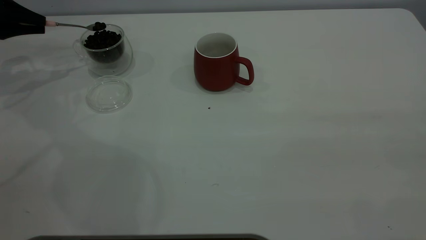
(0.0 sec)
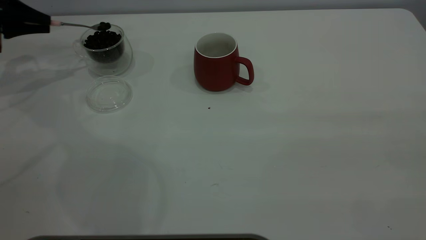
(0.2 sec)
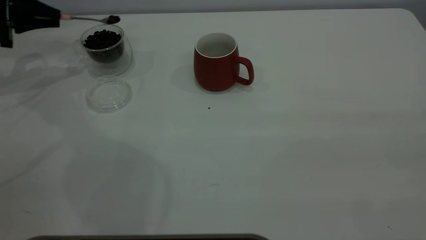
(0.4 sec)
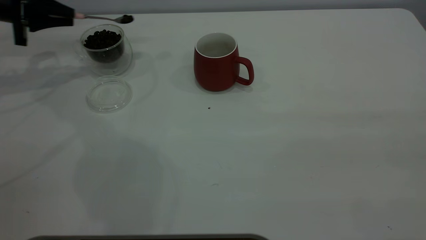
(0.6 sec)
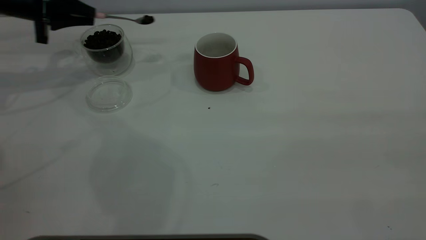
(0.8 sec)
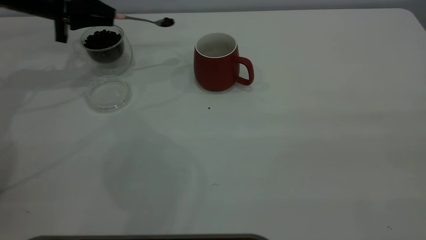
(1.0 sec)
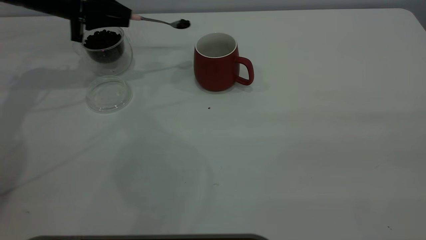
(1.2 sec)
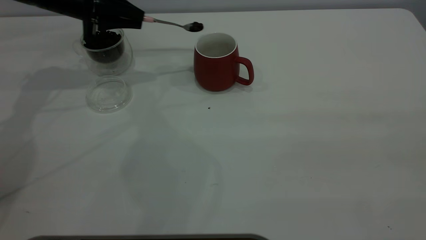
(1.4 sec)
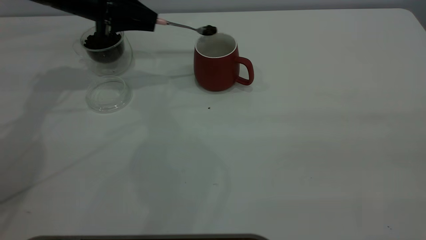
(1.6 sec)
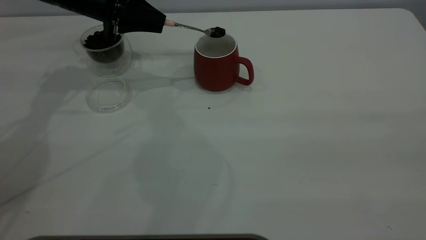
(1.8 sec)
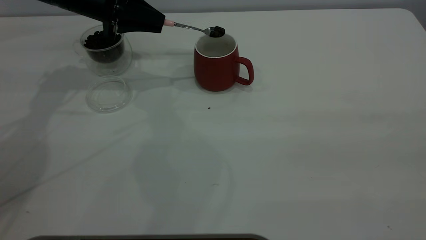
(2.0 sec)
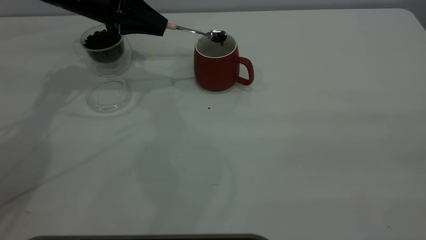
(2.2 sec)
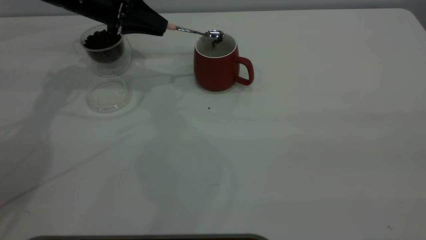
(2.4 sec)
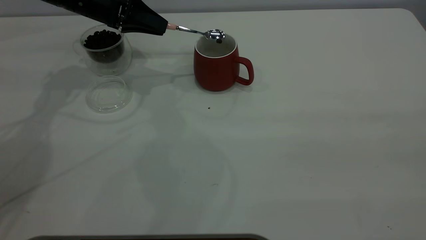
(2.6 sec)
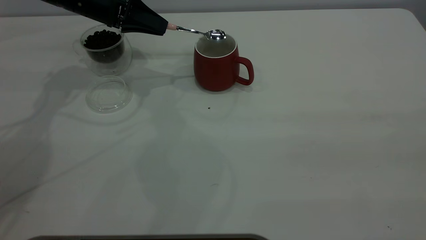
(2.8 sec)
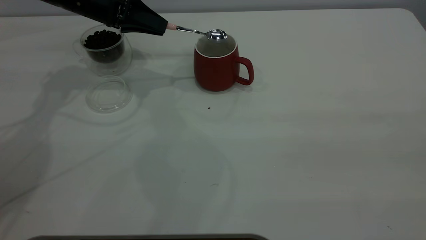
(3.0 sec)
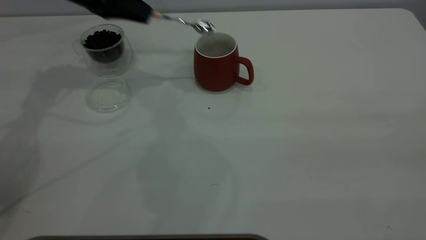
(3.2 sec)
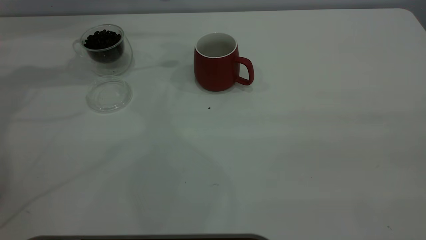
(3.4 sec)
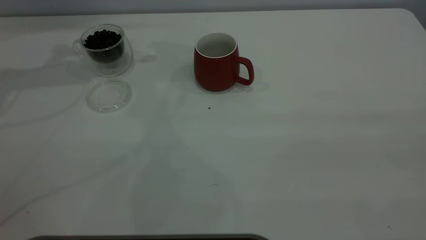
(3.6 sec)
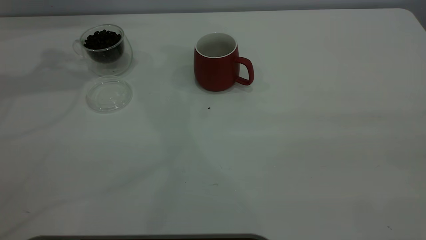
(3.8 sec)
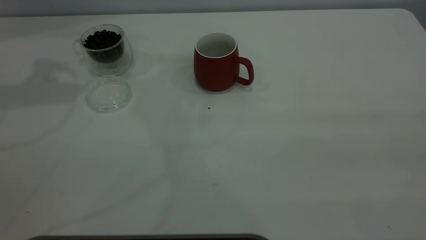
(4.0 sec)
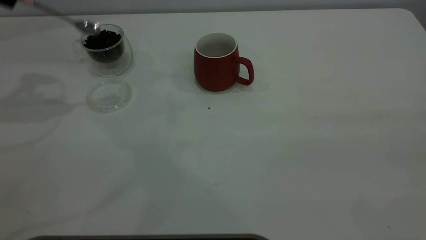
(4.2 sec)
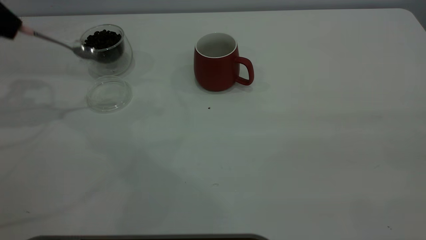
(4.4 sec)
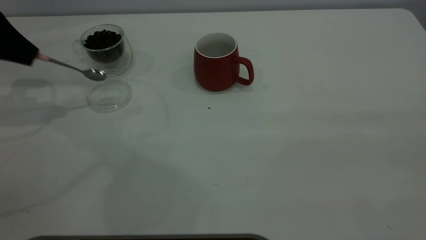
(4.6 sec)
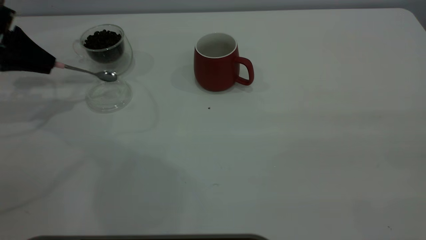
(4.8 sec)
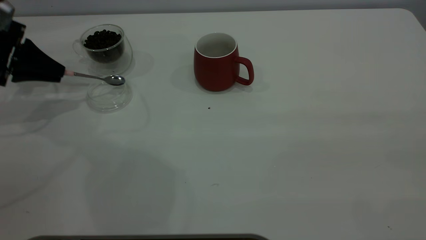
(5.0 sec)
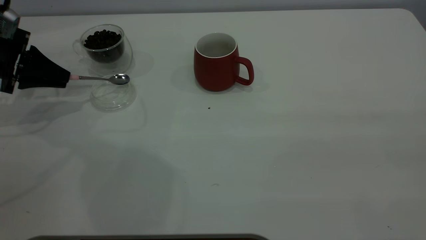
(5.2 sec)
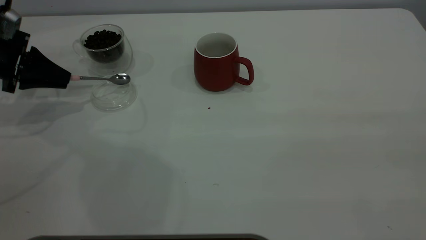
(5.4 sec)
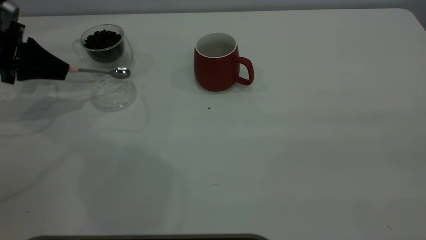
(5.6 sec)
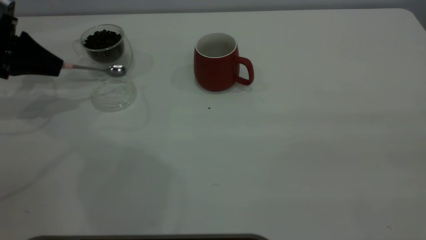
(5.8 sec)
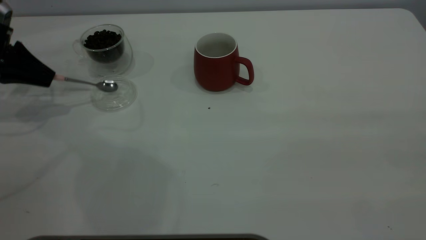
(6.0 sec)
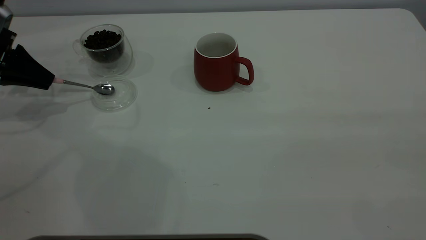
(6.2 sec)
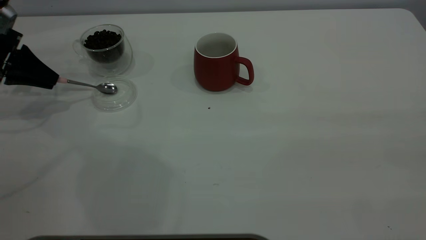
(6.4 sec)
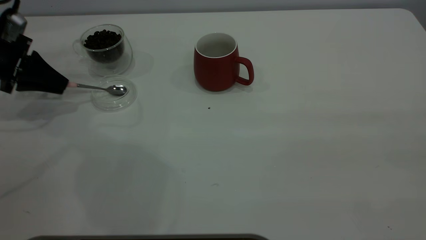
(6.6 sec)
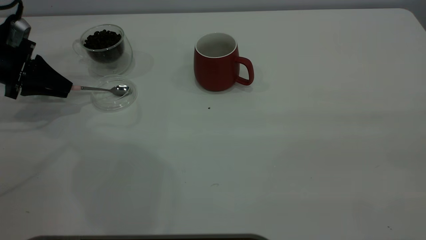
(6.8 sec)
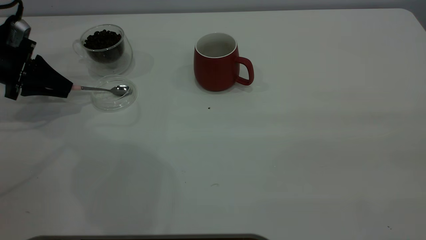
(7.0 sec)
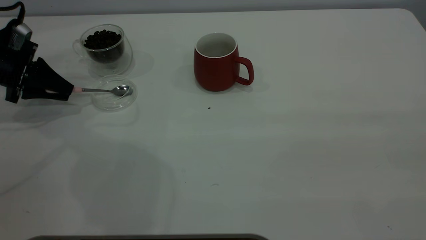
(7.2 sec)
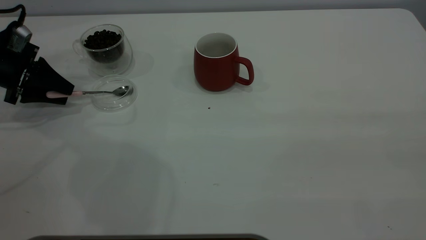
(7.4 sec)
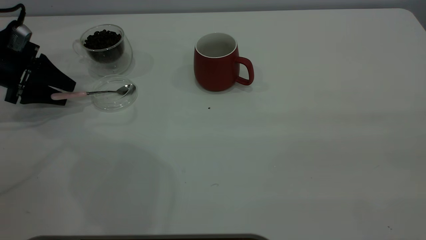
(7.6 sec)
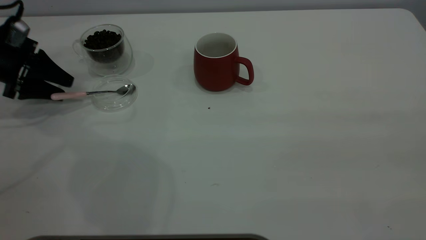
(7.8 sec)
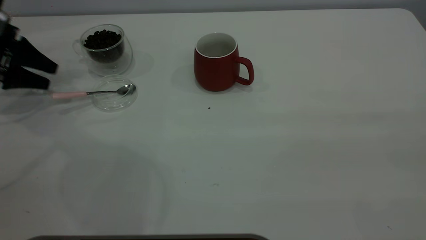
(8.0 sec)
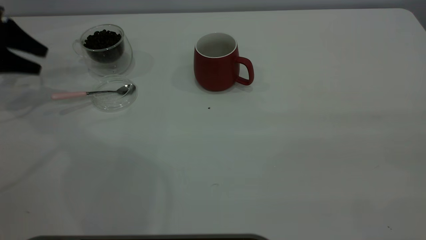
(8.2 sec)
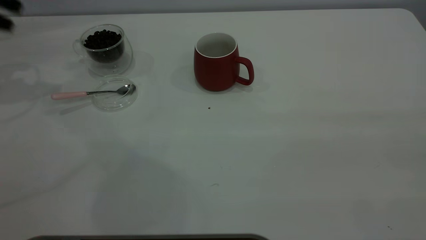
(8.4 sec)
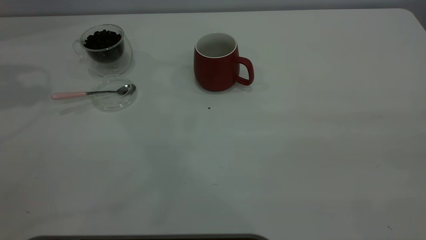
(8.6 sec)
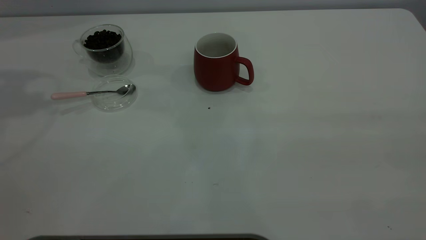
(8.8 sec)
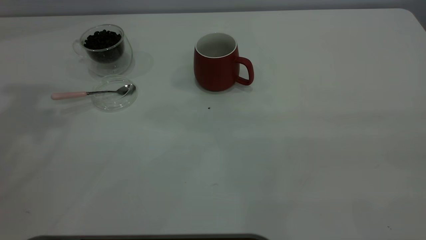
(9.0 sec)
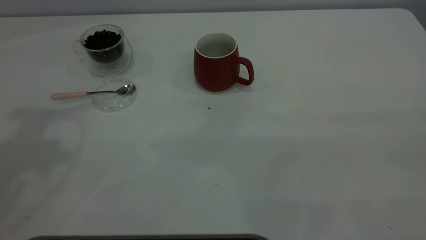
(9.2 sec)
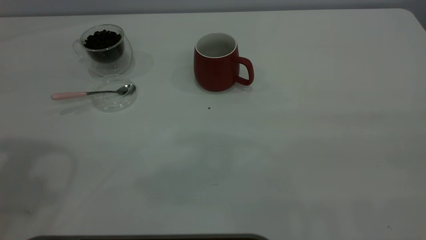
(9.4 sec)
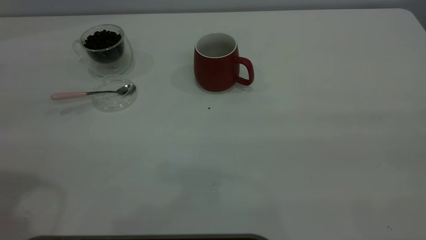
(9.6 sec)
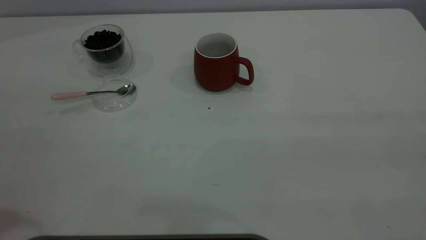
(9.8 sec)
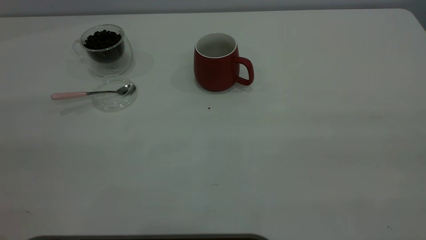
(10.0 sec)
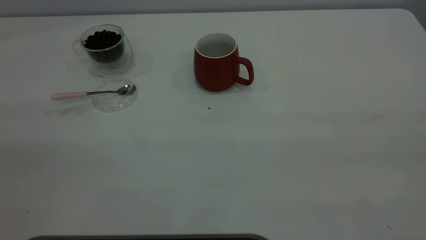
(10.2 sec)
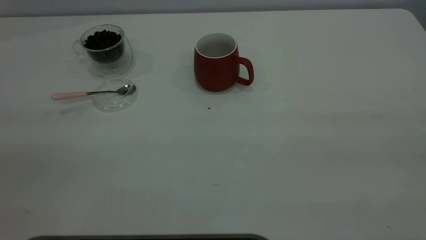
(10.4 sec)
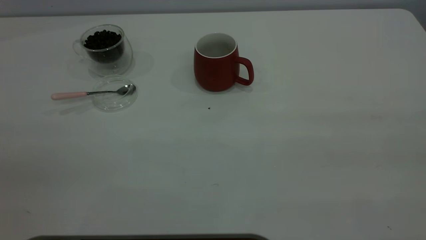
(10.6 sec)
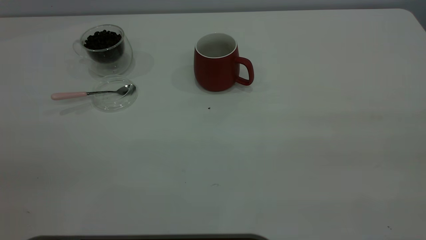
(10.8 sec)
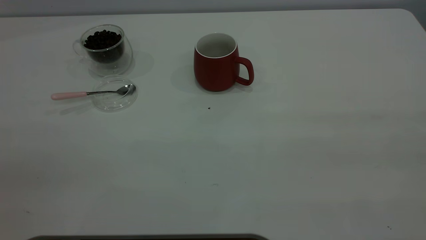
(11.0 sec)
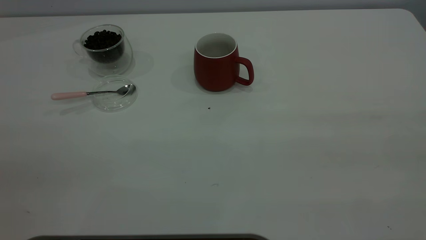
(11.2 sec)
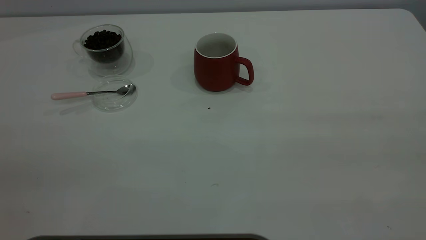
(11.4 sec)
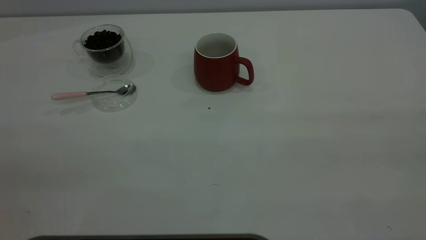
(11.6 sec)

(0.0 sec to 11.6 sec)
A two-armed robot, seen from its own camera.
Task of the whole recording: the right gripper place the red cup in the center of the table, the left gripper take the pink spoon from the cup lid and scoop out the coffee beans from the coffee cup and put them into the red cup, the left gripper put the spoon back into the cup lid.
Step, 0.0 sec - 3.0 sec: Scoop a spoonful of beans into the cup.
Step, 3.4 sec - 8.2 sec: Place the spoon back in its original place.
0.0 sec - 1.4 sec: The left gripper heads to the right, covering some 20 cm.
2.8 sec - 4.4 sec: The left gripper travels to the left, backward and upward by about 20 cm.
4.4 sec - 5.8 sec: The left gripper is displaced downward by some 10 cm.
5.8 sec - 7.2 sec: The grippers make only small movements.
7.2 sec - 8.8 sec: The left gripper moves upward, some 35 cm, and opens up.
